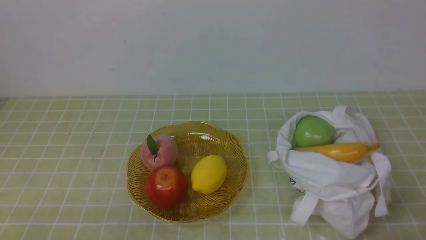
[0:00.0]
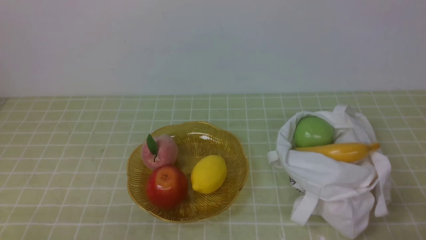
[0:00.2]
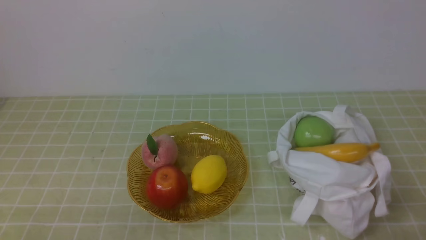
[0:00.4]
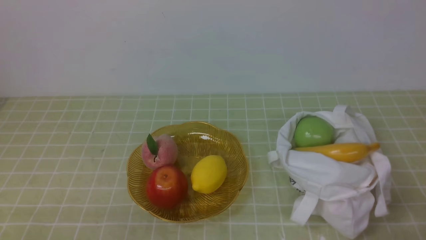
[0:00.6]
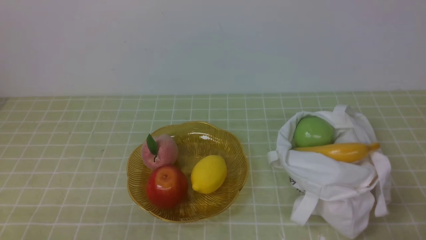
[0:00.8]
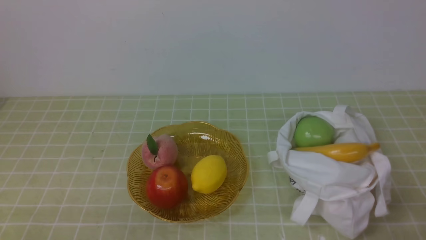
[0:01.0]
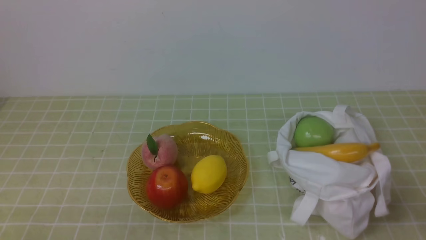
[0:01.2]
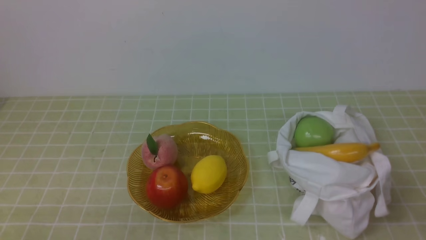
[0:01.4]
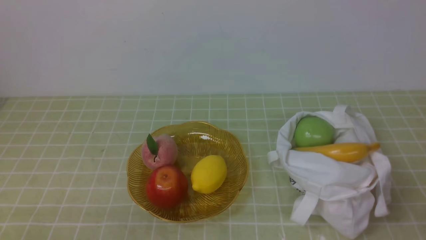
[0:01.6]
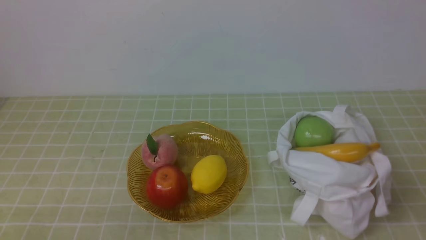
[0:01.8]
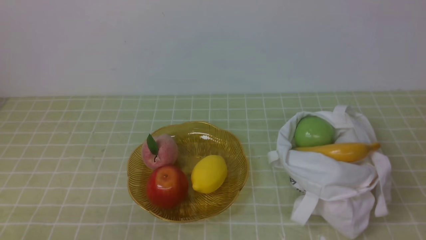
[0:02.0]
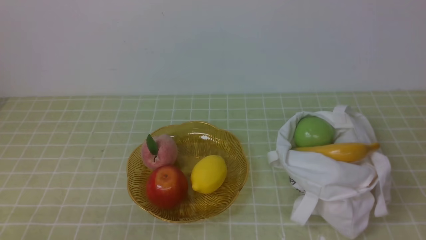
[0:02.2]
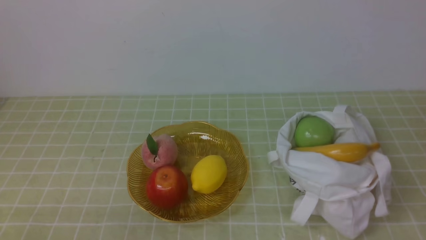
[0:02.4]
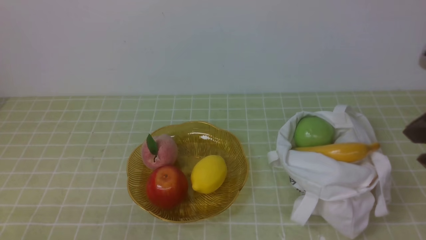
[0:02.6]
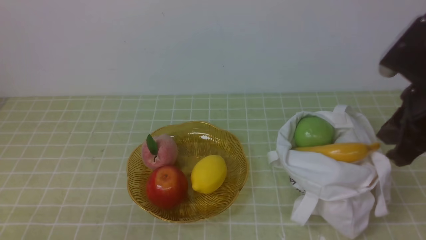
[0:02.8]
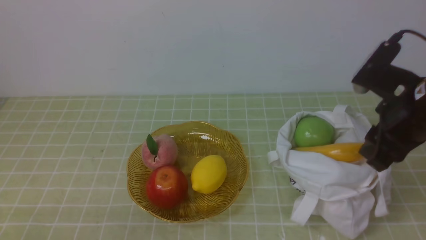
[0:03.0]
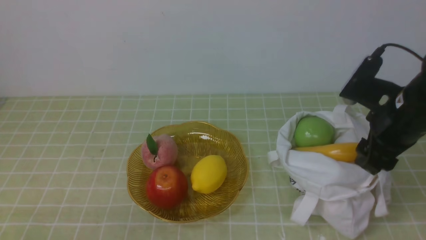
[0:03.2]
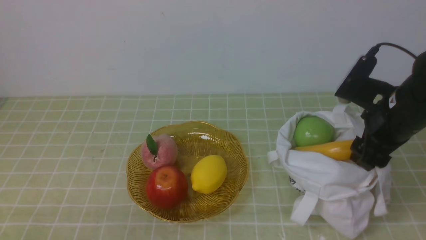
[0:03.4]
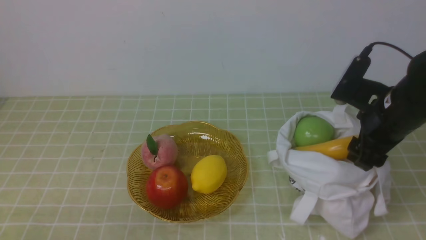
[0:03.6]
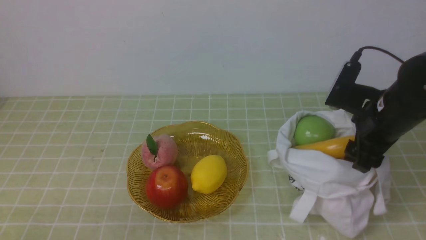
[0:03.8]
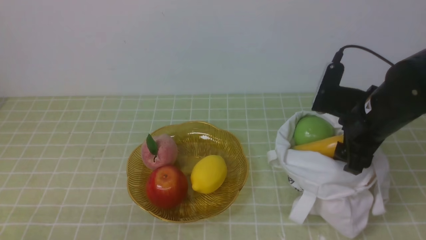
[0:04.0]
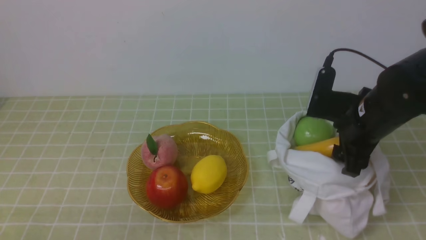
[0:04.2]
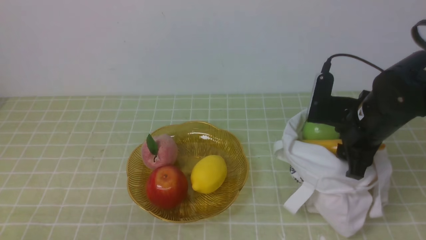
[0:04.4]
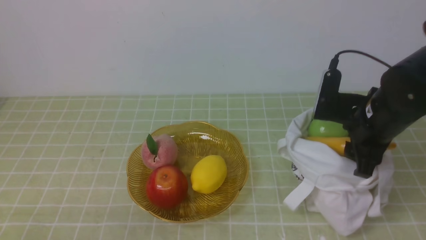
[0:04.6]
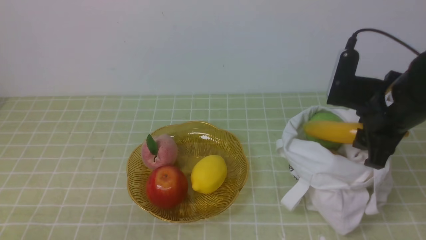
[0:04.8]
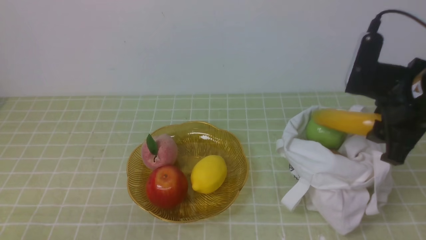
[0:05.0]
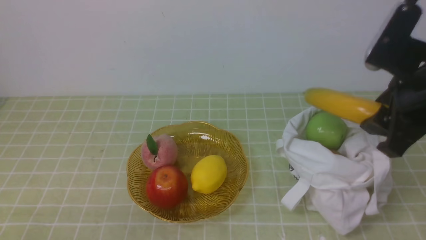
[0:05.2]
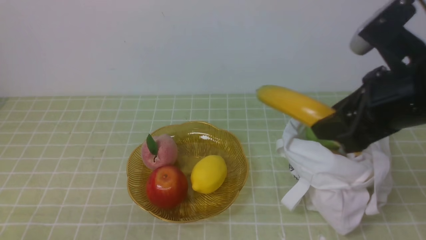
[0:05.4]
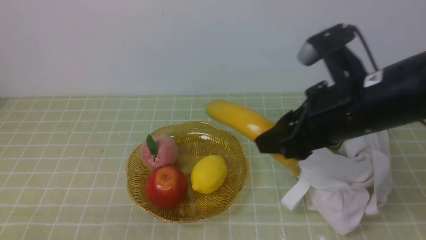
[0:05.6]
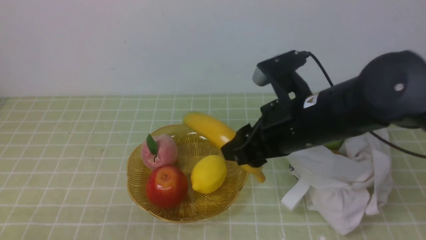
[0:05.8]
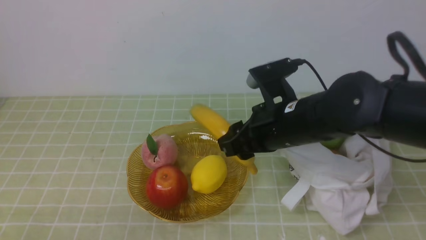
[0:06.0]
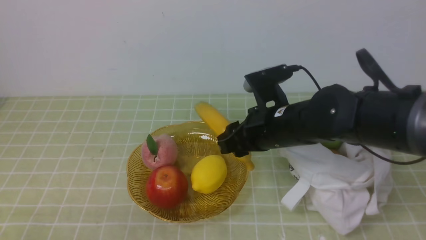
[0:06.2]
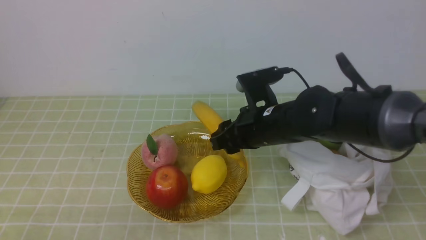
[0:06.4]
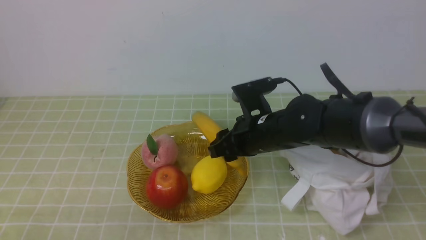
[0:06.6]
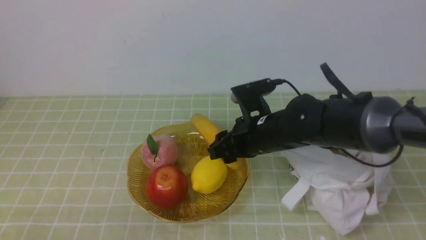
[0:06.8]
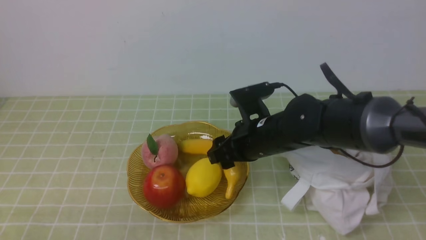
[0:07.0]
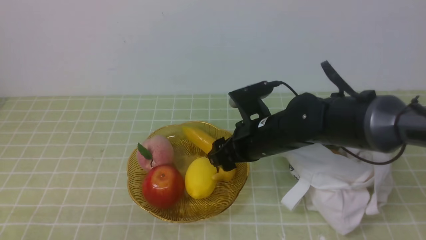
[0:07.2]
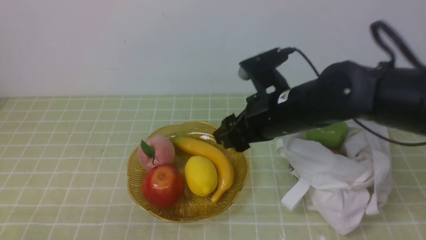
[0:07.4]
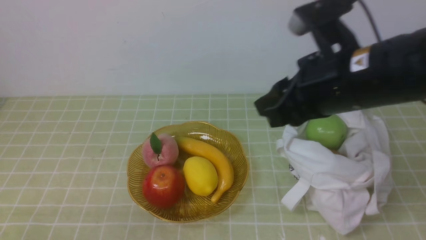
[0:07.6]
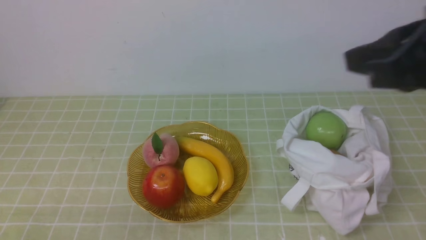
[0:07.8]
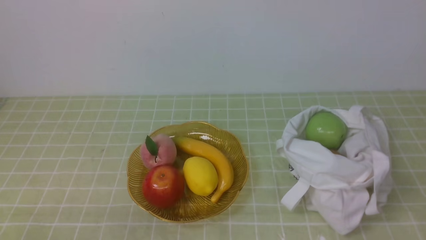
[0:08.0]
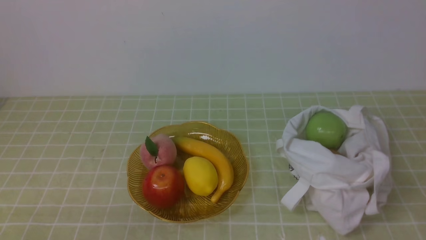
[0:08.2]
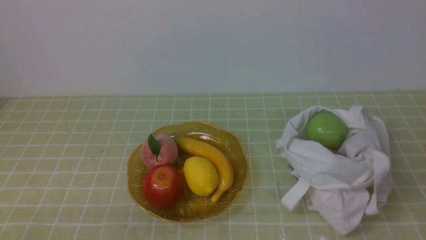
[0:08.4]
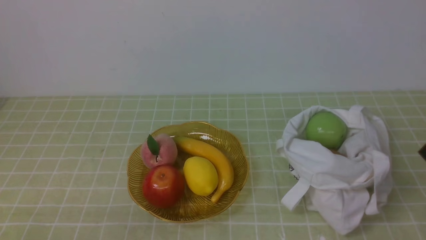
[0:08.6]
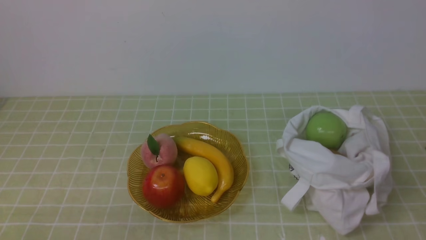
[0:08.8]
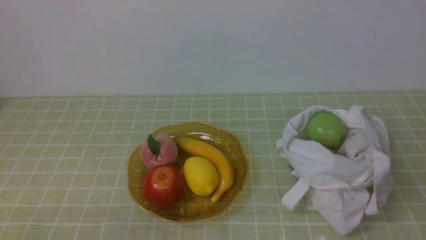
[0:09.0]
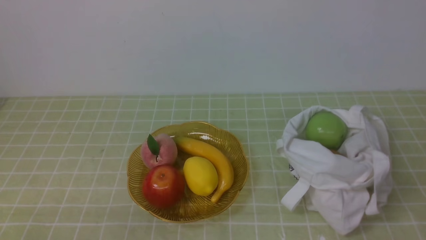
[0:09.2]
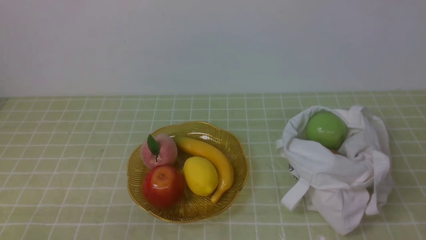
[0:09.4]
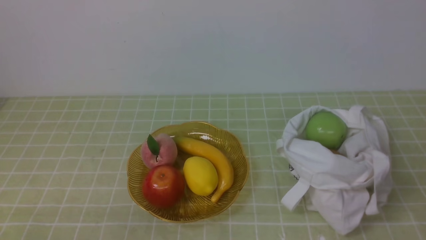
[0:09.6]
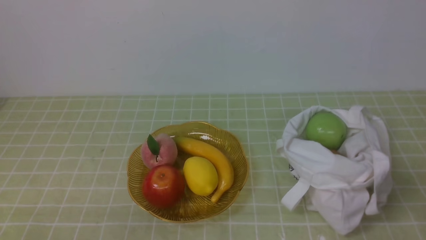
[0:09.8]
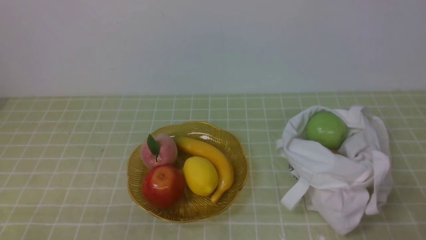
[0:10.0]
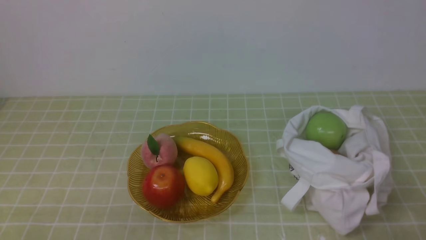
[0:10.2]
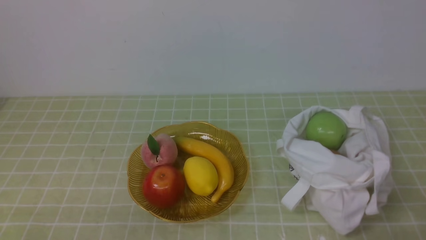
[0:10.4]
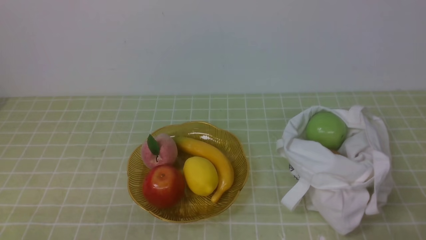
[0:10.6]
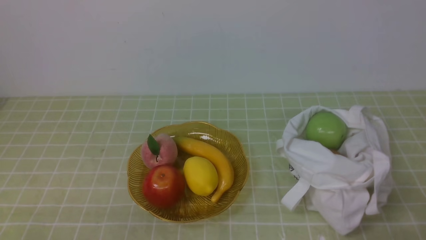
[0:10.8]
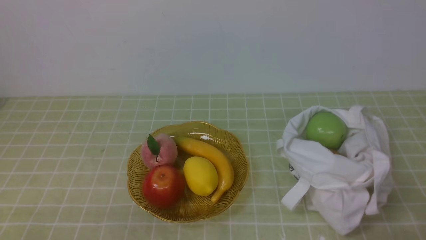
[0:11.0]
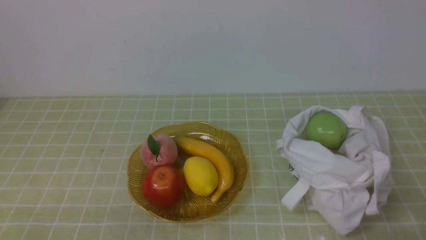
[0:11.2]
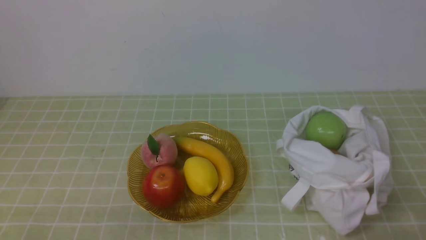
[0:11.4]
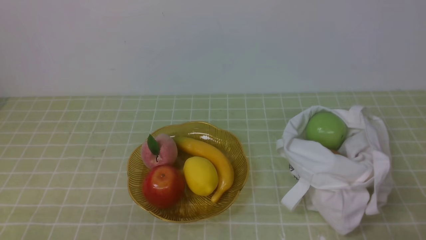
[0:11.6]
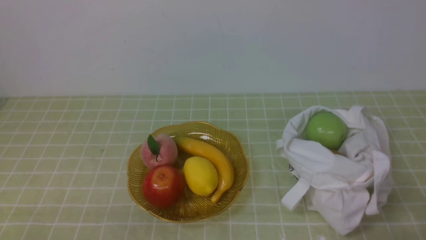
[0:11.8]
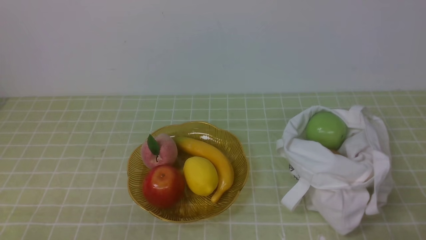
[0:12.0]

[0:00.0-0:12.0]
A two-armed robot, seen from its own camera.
Step, 0:00.0 to 0:04.8: use the right arm to grab a banana from the bag.
Step, 0:05.0 to 0:07.2: use the right arm to put the banana into the empty plate on the right.
0:01.6 to 0:03.0: The right gripper is displaced forward by about 20 cm, and opens its fingers.
0:03.0 to 0:04.4: The right gripper shifts some 5 cm downward.
0:04.4 to 0:06.0: The right gripper moves to the left, roughly 15 cm.
0:06.0 to 0:07.6: The right gripper heads upward, backward and to the right, covering some 15 cm.
0:07.6 to 0:09.0: The right gripper travels backward and to the right by approximately 20 cm, and closes.
0:10.4 to 0:12.0: The two grippers keep their place.
